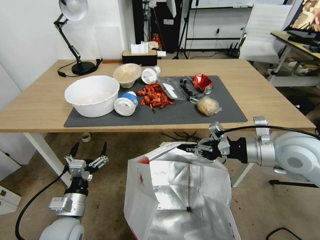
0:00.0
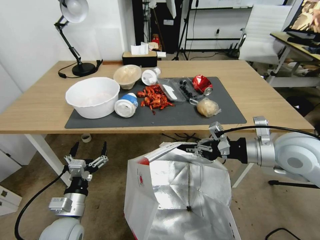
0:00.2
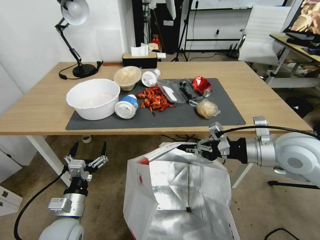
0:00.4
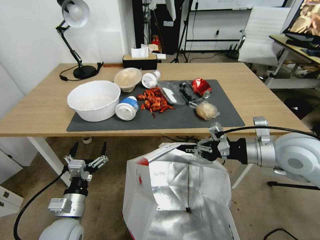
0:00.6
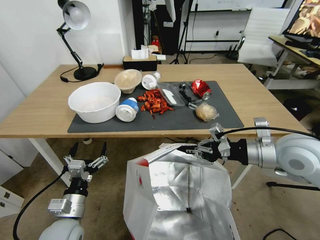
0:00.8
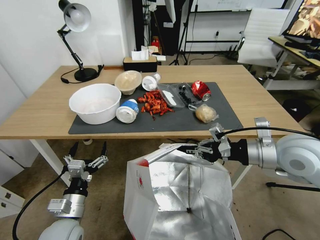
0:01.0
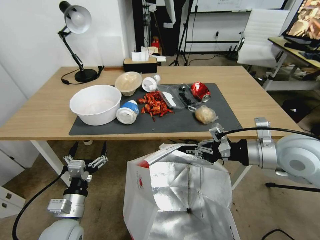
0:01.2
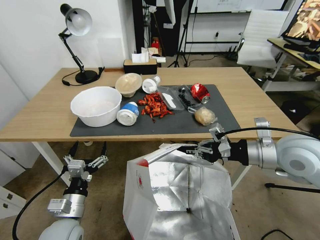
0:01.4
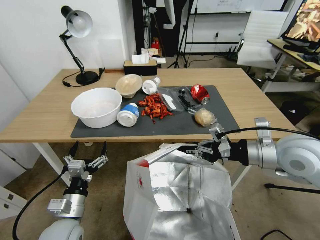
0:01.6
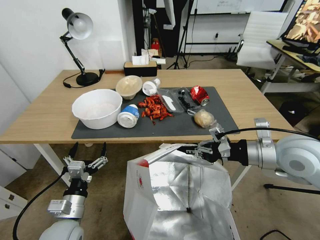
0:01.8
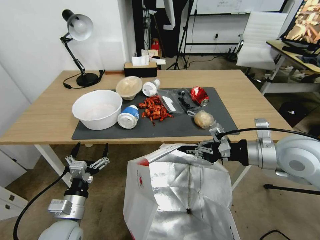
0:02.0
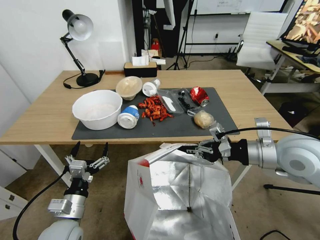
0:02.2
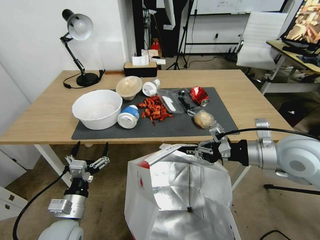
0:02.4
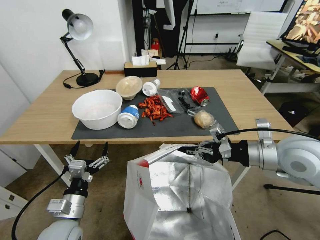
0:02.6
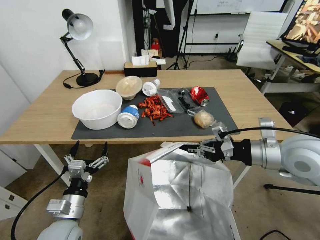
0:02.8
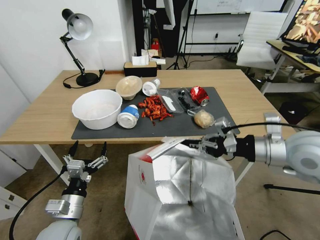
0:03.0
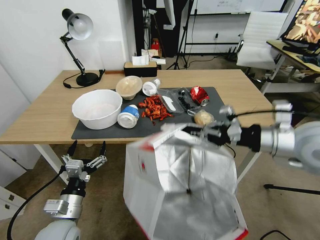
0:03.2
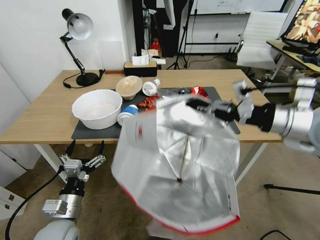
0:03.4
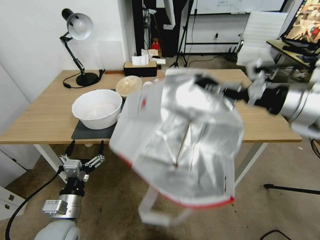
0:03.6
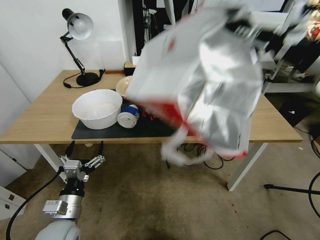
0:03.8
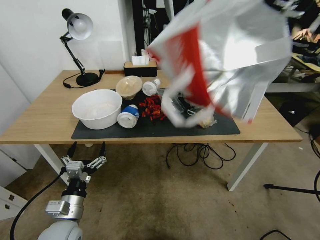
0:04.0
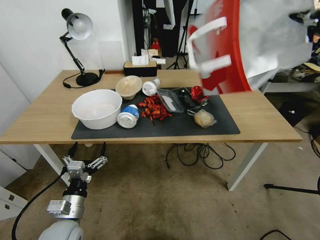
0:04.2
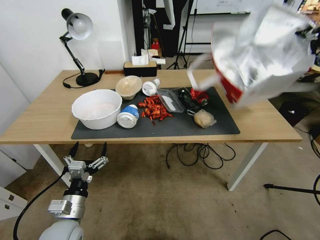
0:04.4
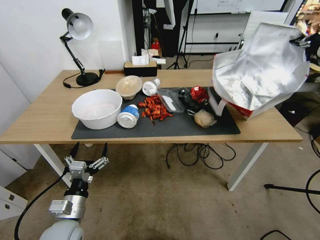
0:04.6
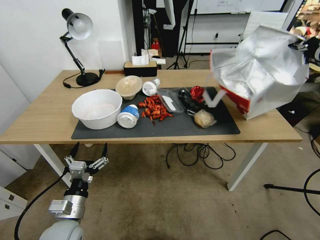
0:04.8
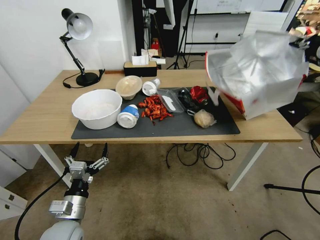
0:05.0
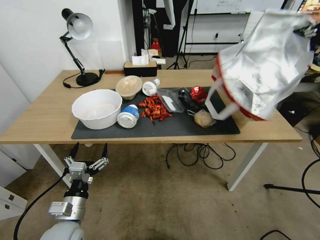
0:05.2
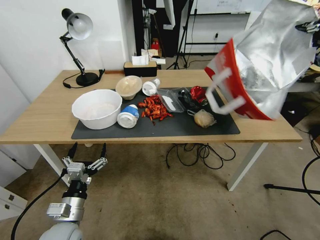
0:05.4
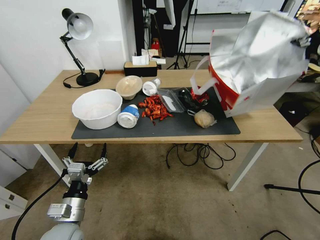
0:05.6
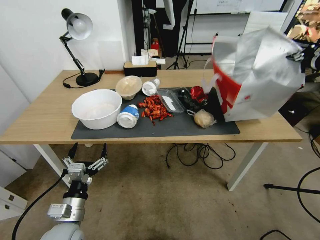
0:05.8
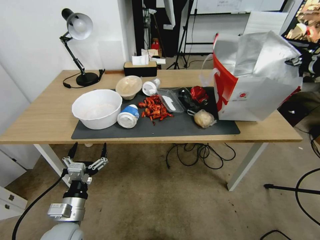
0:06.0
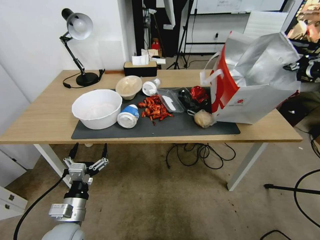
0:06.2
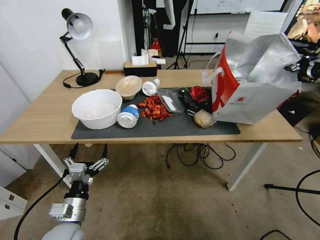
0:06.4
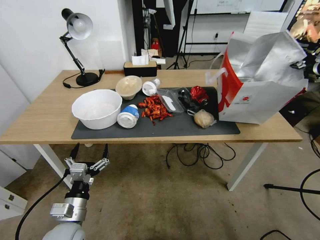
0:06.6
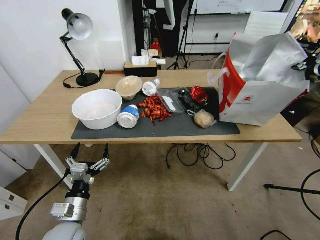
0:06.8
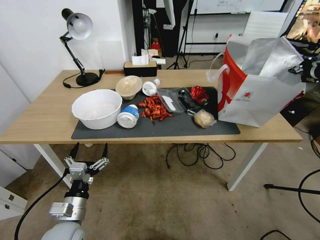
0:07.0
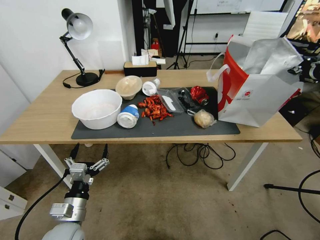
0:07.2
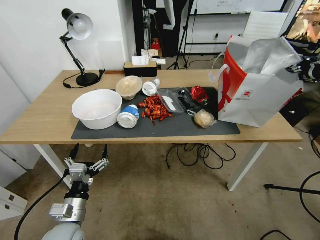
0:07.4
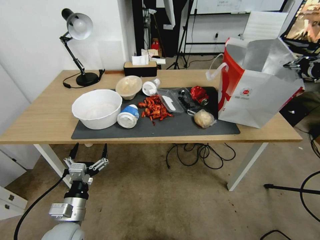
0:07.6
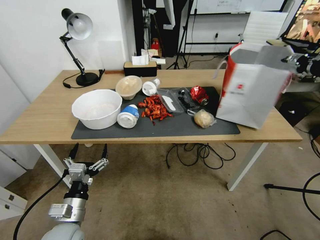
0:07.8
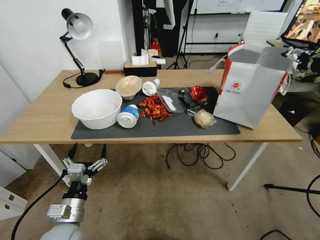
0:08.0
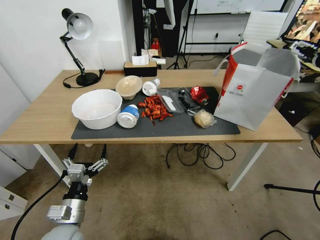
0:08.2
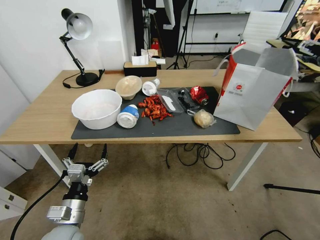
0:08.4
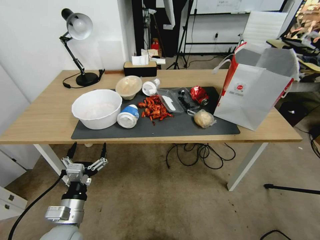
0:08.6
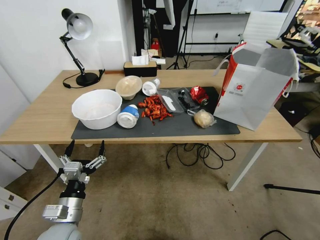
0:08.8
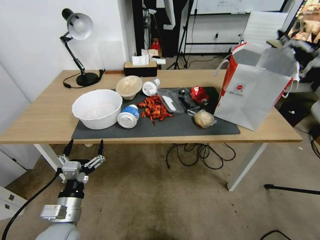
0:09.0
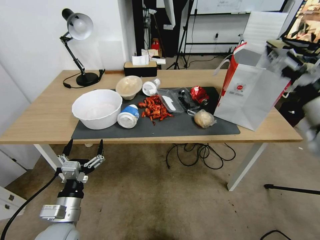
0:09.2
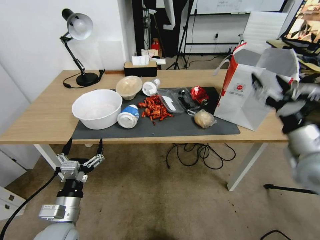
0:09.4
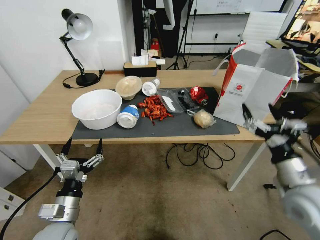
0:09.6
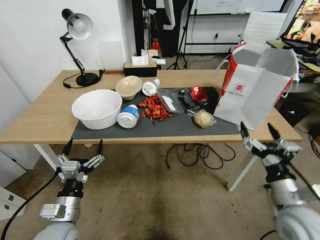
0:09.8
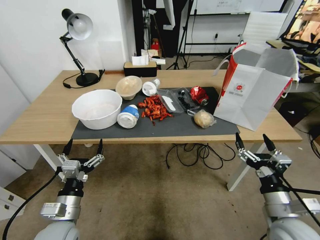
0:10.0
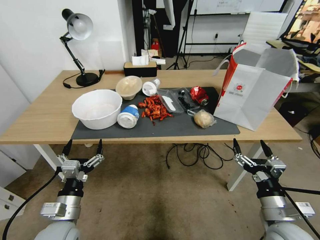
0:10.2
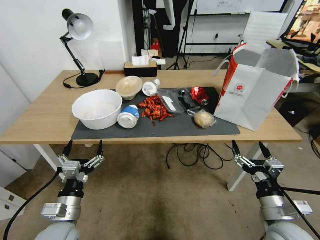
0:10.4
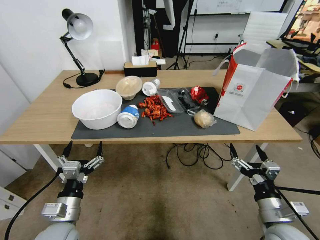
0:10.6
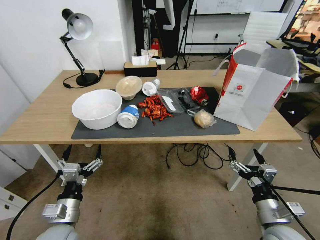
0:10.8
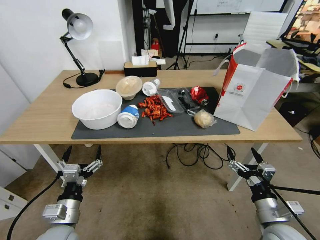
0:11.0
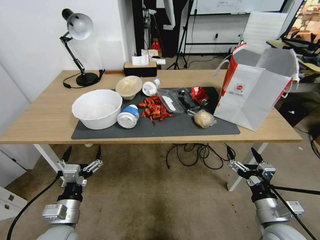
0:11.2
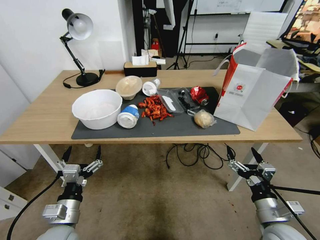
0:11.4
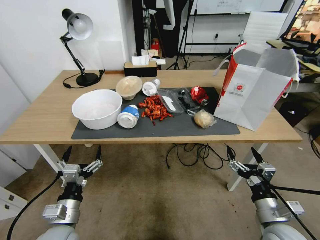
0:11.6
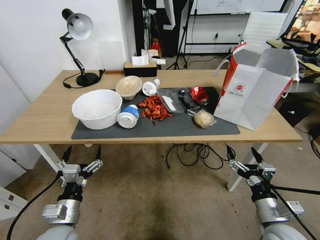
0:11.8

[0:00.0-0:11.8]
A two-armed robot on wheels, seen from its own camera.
Task of the whole recording: Pick up the food delivery bag from the floor and place it on the table.
0:03.0 to 0:04.4: The right gripper is displaced upward, to the right and forward by roughly 25 cm.
0:04.4 to 0:06.0: The grippers move only a little.
0:06.0 to 0:07.4: There are only small adjustments of the grippers.
0:07.4 to 0:08.8: The right gripper shifts about 5 cm backward, and opens.
0:08.8 to 0:10.4: The right gripper moves downward, backward and to the left, roughly 40 cm.
0:10.4 to 0:11.8: The grippers make only small movements.

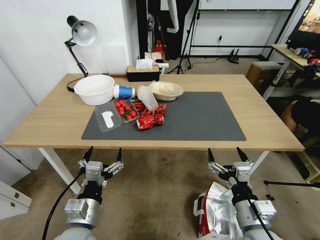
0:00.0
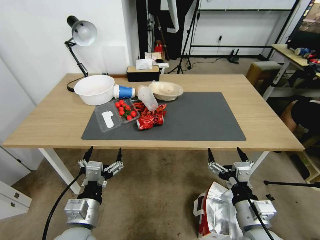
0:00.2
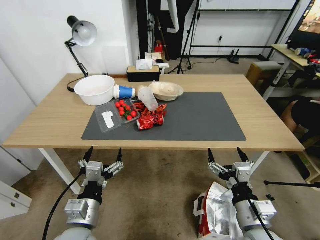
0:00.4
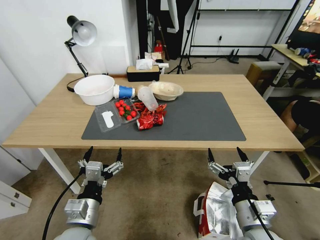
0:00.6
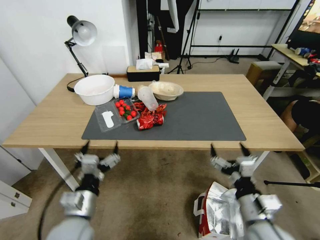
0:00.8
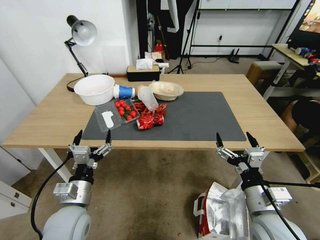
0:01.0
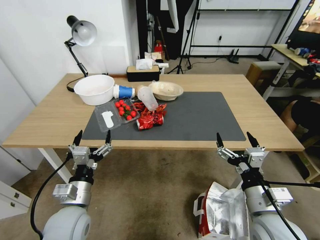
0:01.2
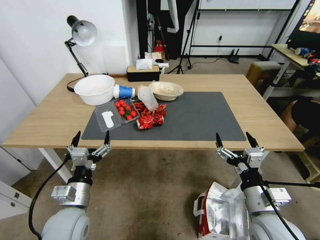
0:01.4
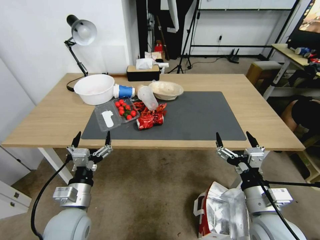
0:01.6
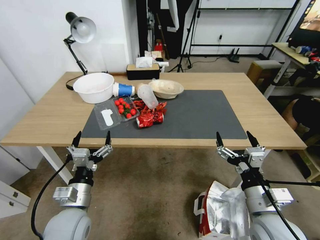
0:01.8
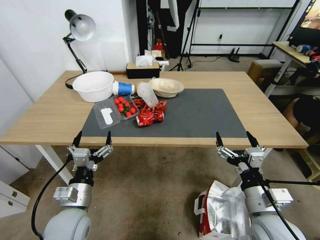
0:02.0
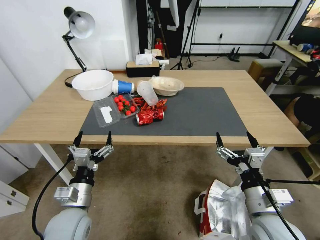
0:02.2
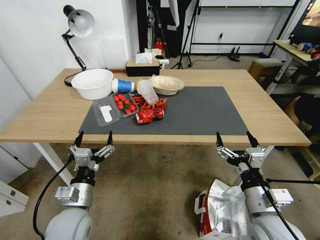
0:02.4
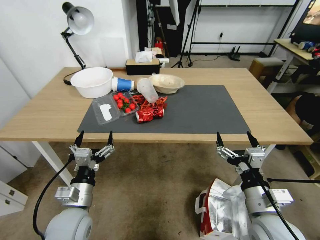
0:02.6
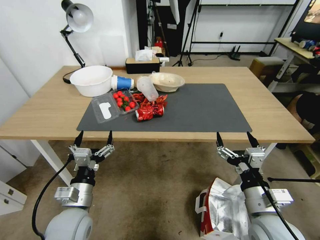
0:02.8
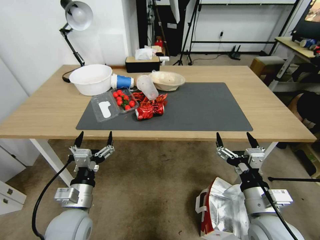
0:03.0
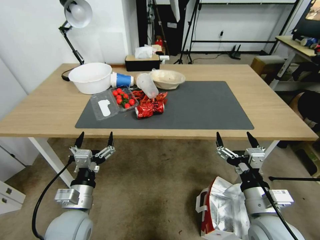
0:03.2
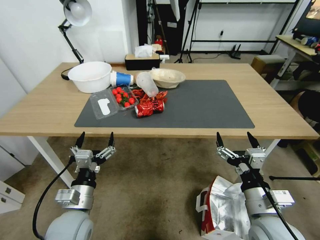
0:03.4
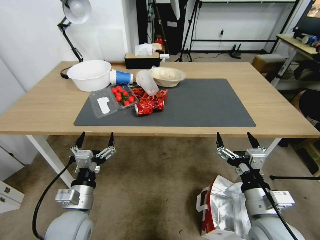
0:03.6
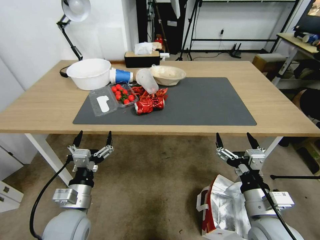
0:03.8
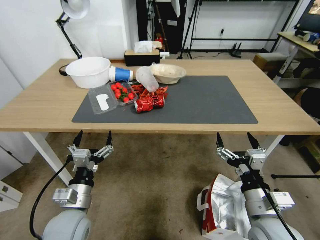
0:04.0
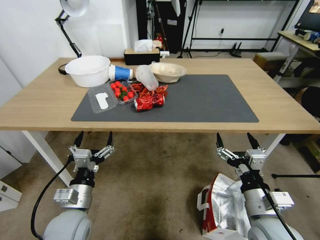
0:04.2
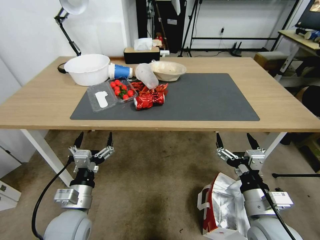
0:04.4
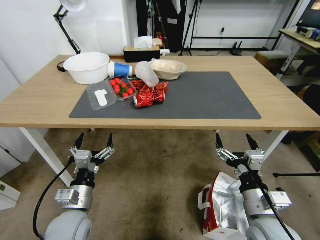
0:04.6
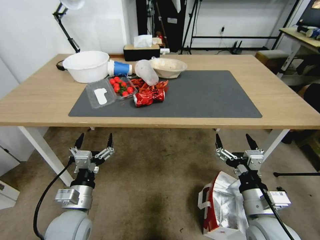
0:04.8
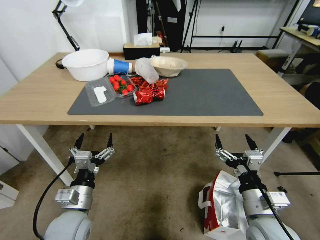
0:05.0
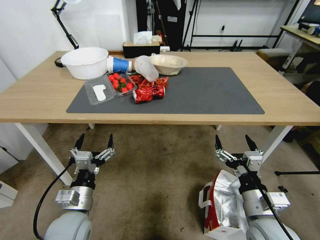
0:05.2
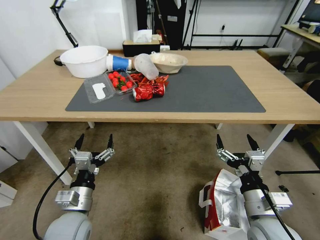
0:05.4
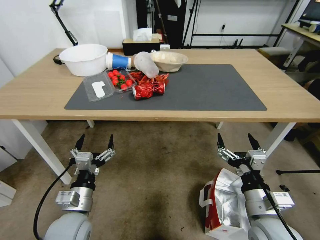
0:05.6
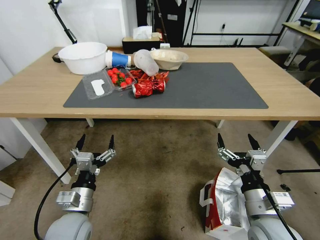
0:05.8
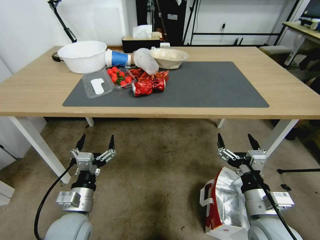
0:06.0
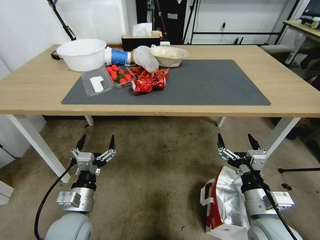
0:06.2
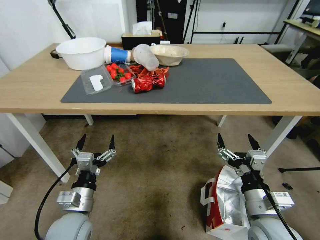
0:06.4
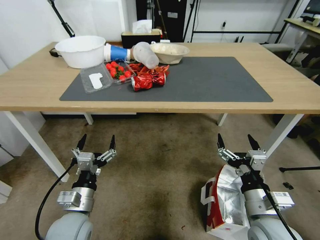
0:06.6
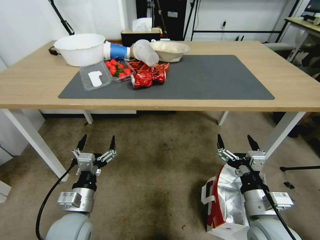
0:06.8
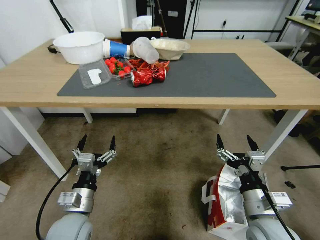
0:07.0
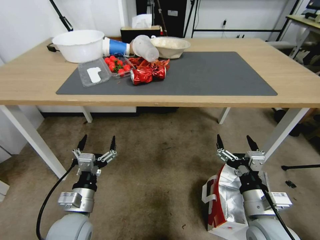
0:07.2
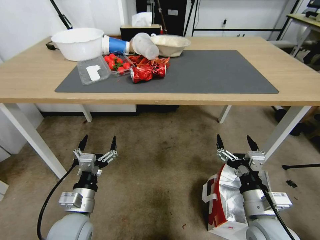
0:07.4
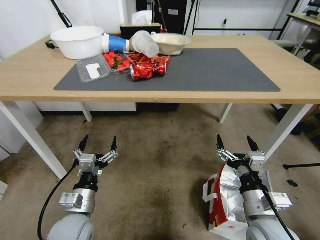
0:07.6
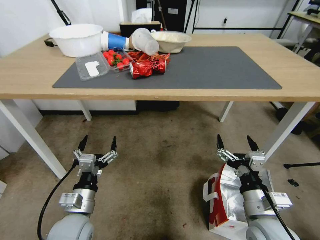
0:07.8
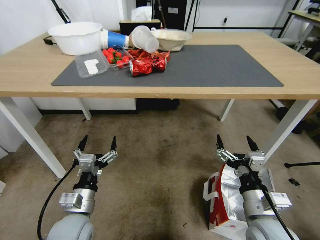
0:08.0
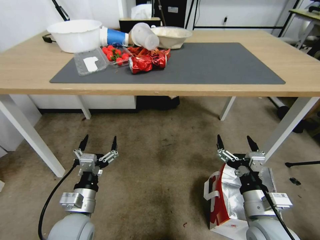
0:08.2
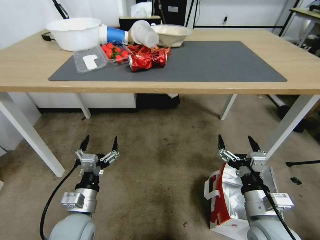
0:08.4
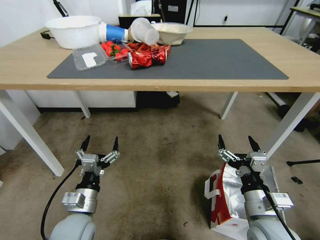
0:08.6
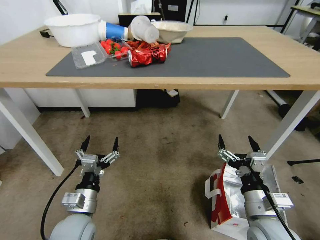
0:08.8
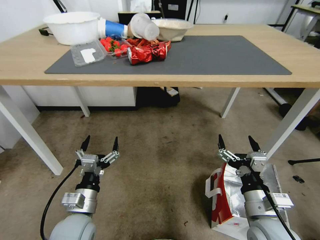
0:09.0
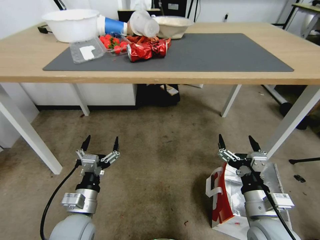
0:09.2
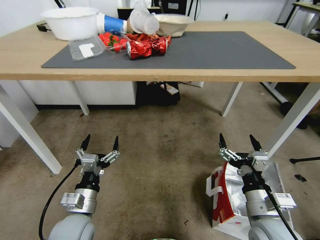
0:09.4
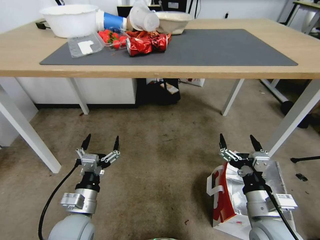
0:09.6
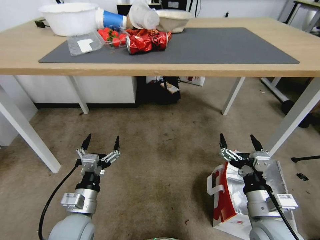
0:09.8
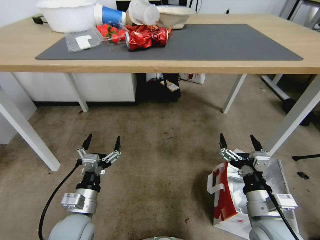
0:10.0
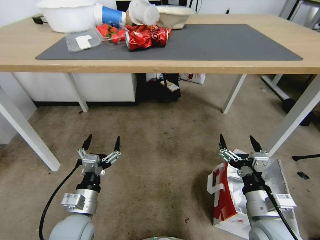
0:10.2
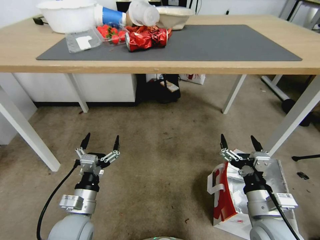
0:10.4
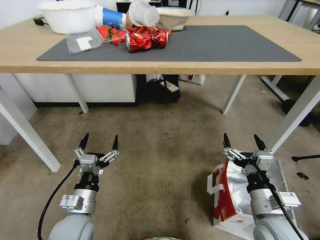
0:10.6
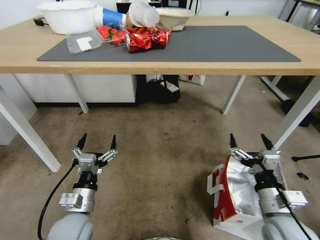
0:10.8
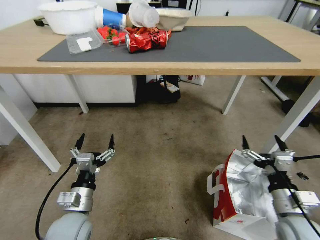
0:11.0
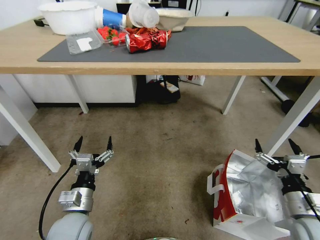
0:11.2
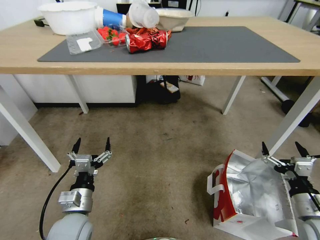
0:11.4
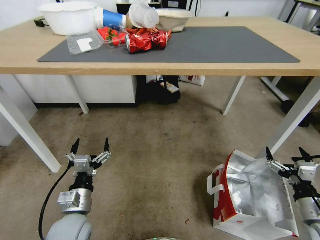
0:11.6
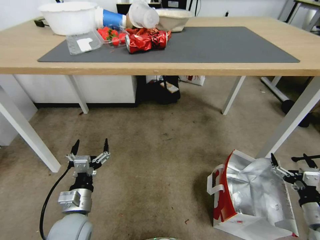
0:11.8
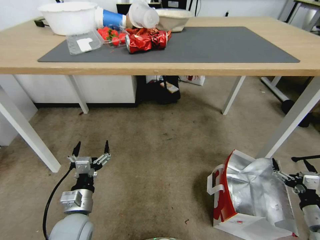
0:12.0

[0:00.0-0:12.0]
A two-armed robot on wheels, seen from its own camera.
Task of the whole recording: Pick up the food delivery bag from the floor and place it on the table.
0:10.4 to 0:12.0: The right gripper moves to the right and downward, some 25 cm.
